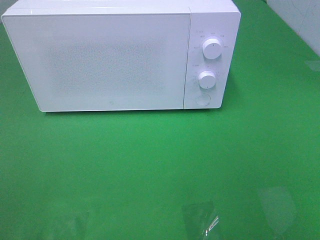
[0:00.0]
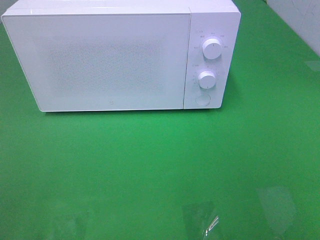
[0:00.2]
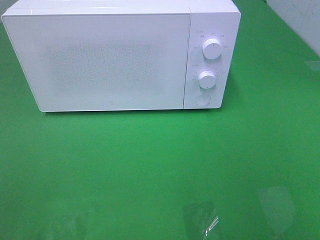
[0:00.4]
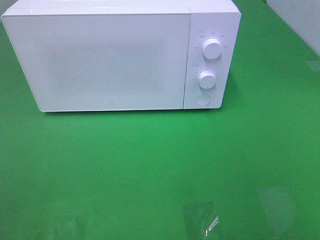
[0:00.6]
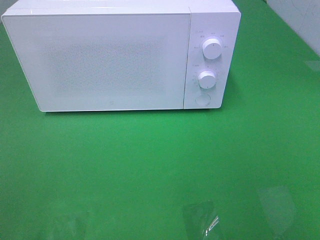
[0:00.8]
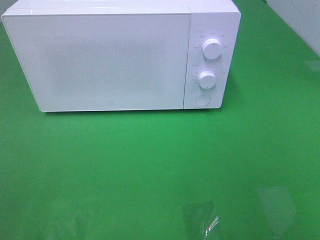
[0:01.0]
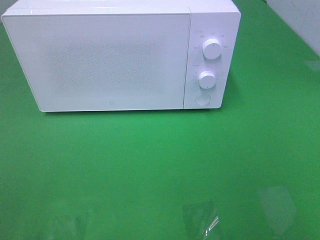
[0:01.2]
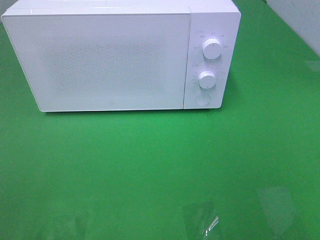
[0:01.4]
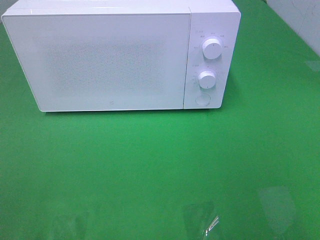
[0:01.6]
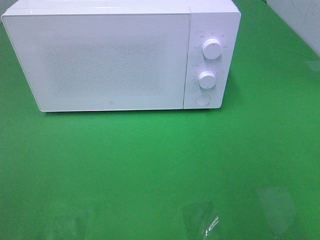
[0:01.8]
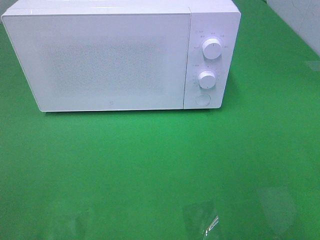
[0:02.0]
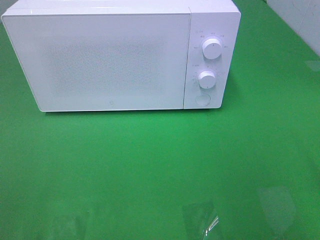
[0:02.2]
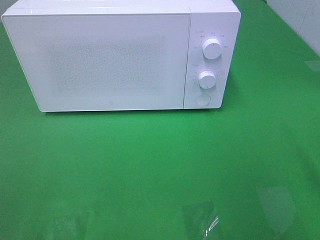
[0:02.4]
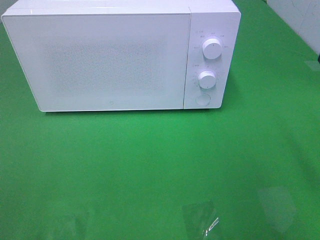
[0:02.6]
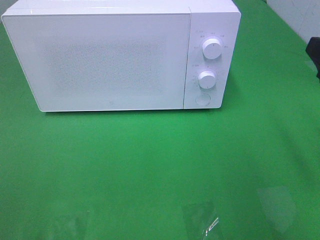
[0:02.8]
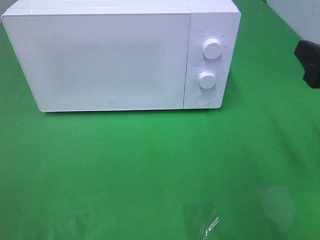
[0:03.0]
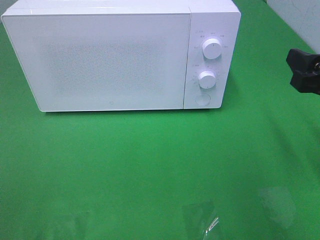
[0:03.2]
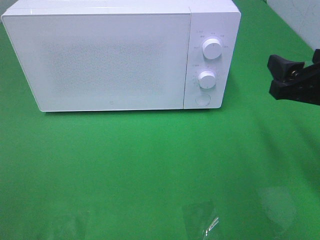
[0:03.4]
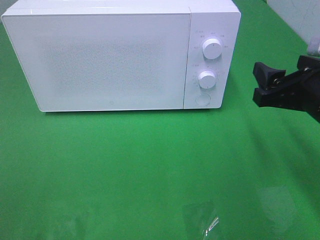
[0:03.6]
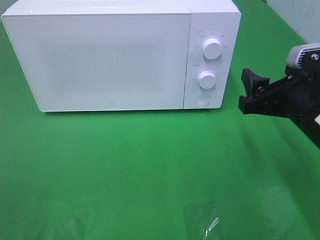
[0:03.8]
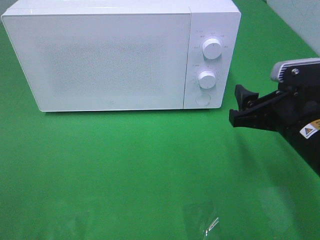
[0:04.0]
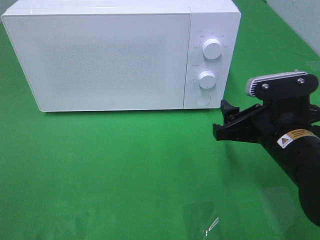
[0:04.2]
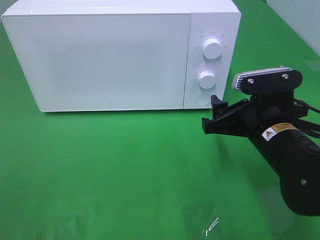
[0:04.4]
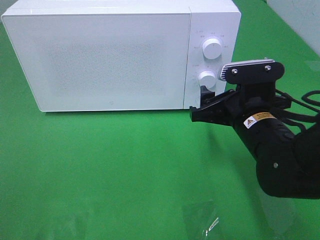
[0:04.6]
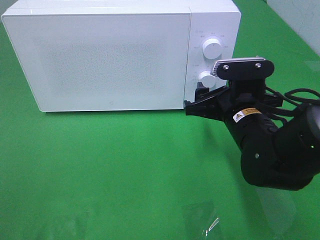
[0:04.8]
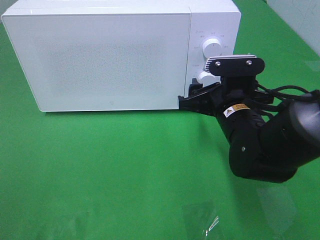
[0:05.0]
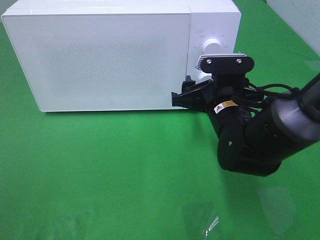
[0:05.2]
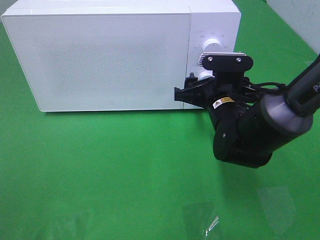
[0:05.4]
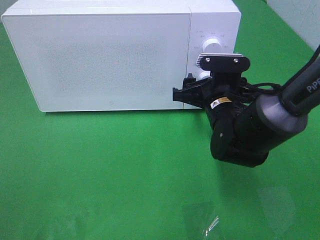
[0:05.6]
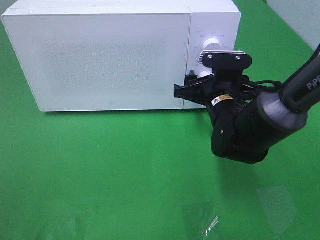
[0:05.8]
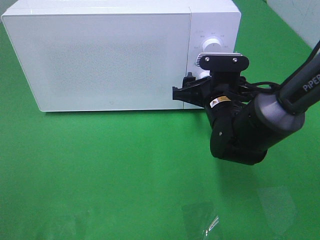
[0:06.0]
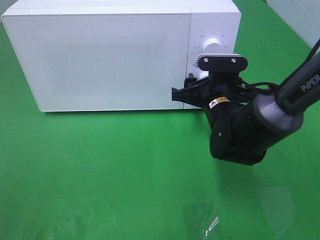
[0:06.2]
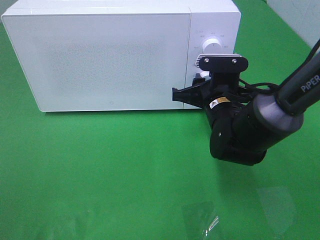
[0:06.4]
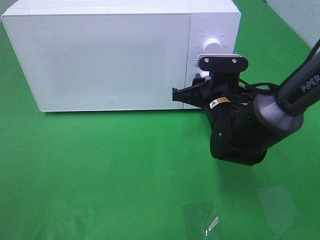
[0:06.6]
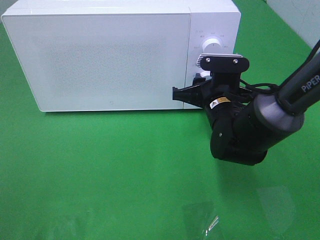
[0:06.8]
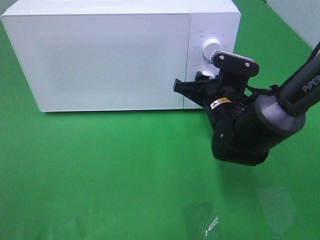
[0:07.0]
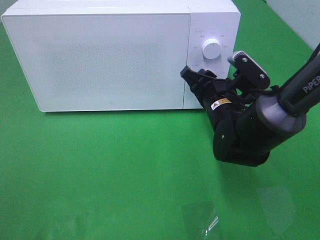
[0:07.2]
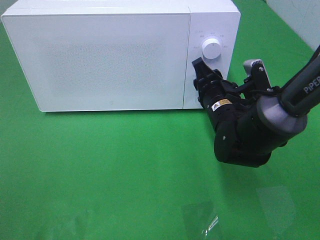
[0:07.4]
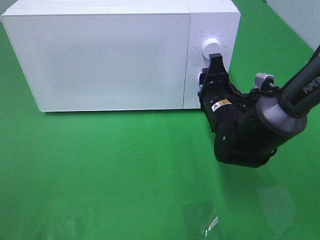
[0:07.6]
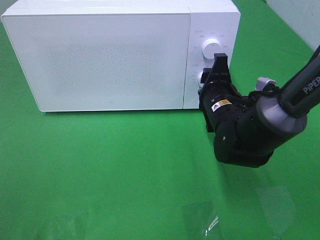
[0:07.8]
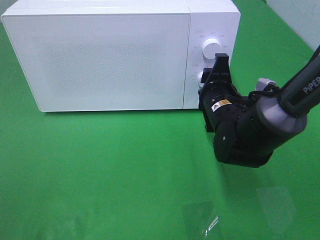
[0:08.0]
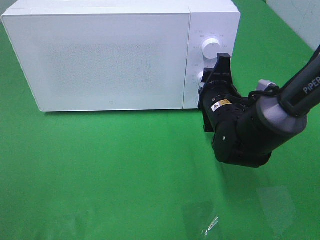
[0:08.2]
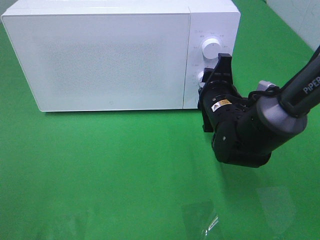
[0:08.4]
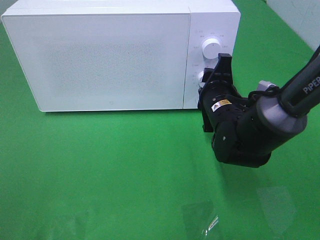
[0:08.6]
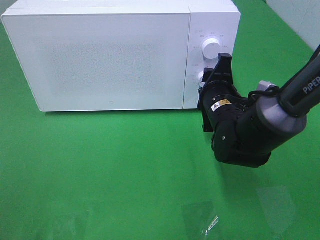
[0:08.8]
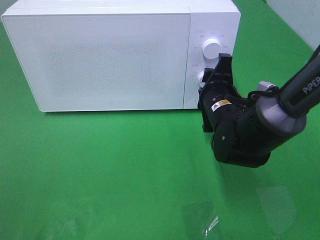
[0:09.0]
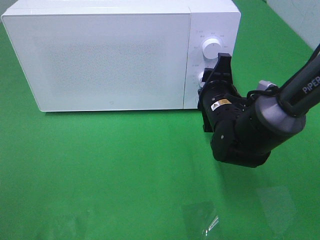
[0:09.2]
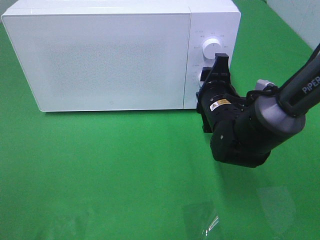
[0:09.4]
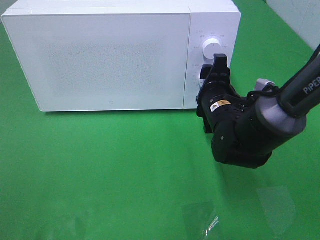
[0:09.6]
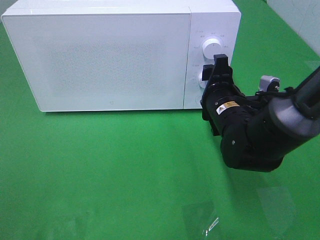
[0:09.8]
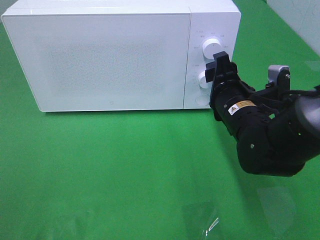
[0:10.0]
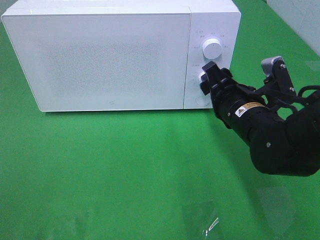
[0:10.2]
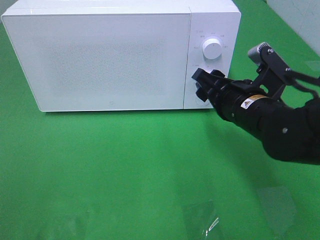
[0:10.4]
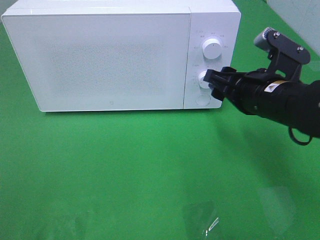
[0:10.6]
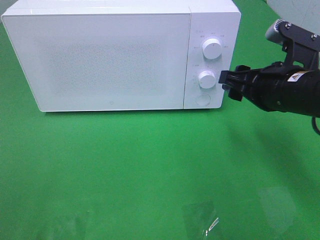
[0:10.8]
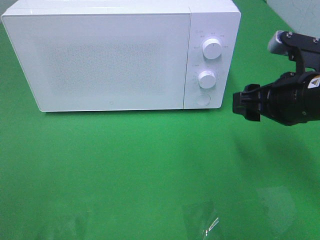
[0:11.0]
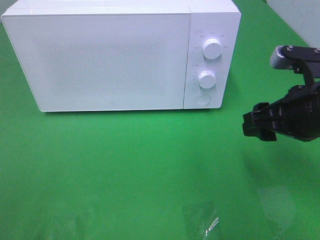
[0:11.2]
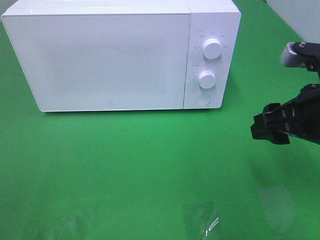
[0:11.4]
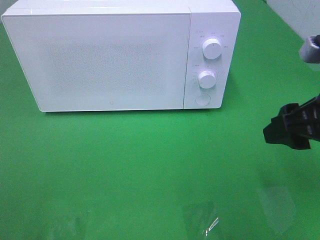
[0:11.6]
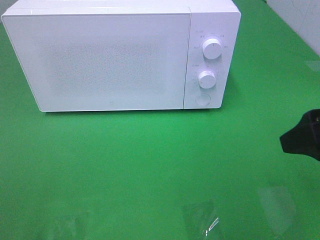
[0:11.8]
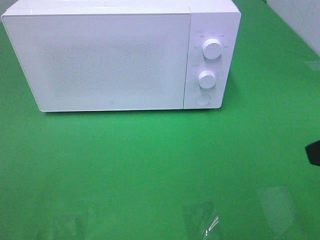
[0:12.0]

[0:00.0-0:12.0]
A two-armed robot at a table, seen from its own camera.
Task of the whole recording: Heat the burger.
Step, 0:00.0 to 0:09.8: Right hand: twist timer button.
0:01.6 to 0:03.0: The right gripper is displaced forward and downward by about 15 cm.
0:03.0 to 0:04.4: The right gripper is displaced to the left and downward by roughly 15 cm.
0:04.4 to 0:06.0: The right gripper shifts roughly 10 cm forward.
0:06.0 to 0:07.6: The right gripper closes its fingers.
0:07.6 to 0:09.0: The grippers move only a little.
0:09.0 to 0:10.4: The right gripper travels backward by roughly 5 cm.
0:10.4 to 0:12.0: The right gripper goes approximately 20 cm backward, upward and to the right.

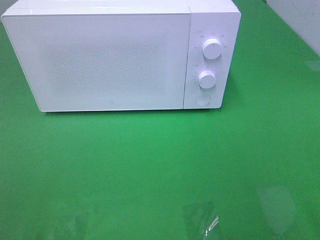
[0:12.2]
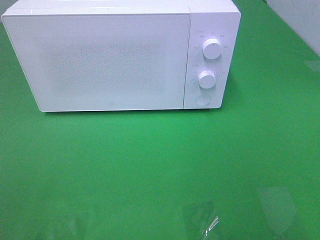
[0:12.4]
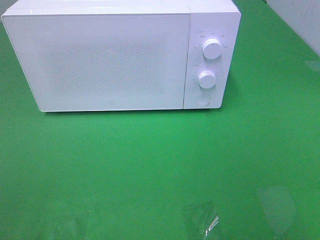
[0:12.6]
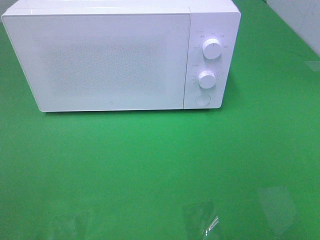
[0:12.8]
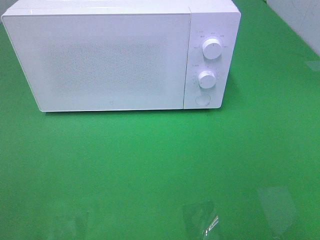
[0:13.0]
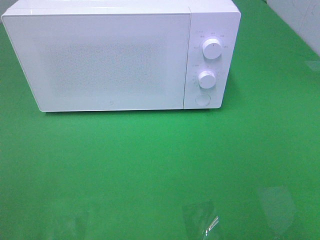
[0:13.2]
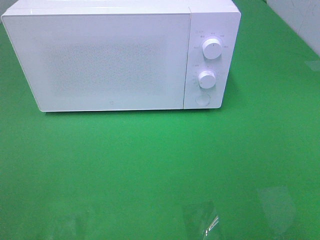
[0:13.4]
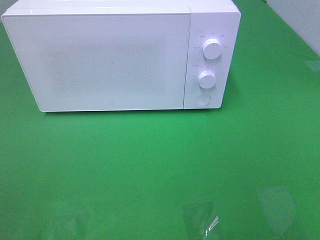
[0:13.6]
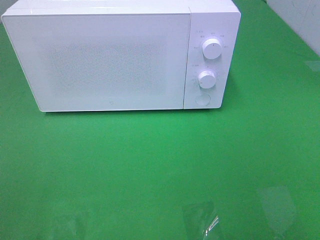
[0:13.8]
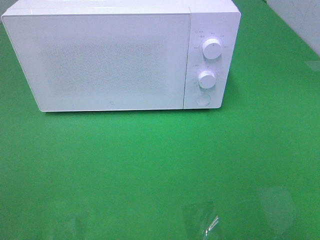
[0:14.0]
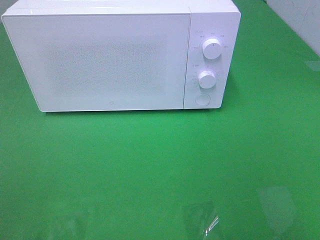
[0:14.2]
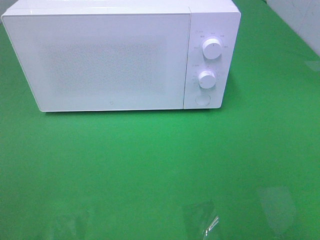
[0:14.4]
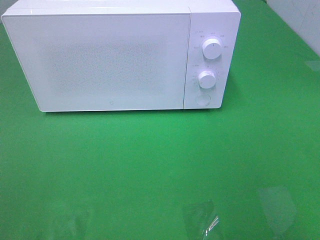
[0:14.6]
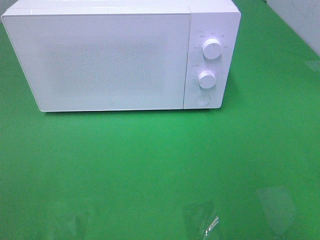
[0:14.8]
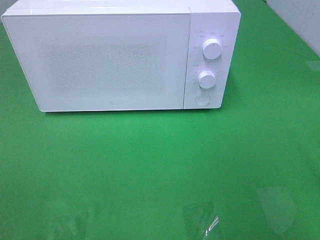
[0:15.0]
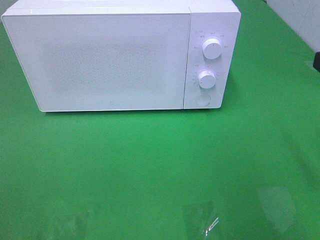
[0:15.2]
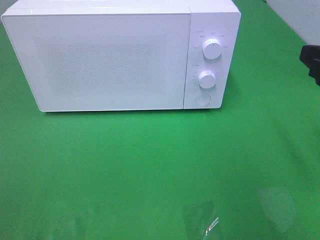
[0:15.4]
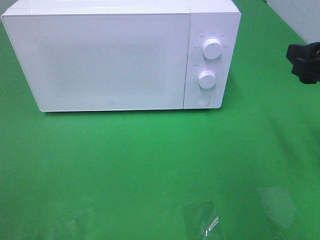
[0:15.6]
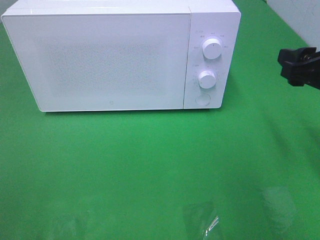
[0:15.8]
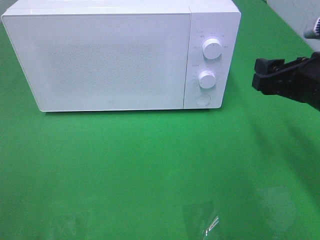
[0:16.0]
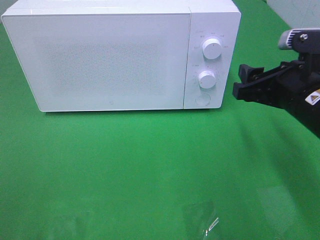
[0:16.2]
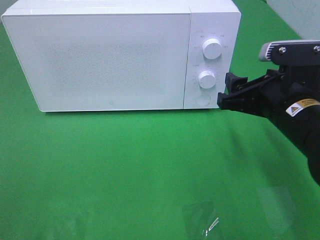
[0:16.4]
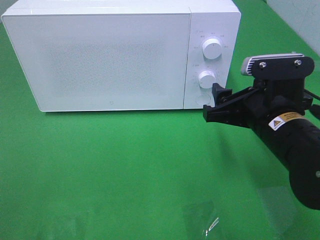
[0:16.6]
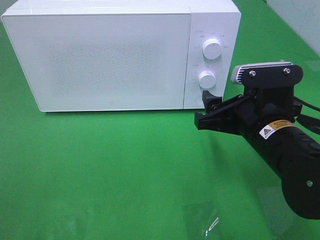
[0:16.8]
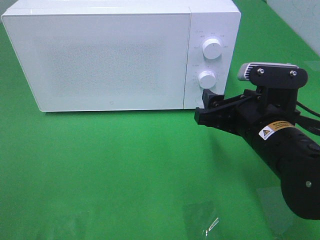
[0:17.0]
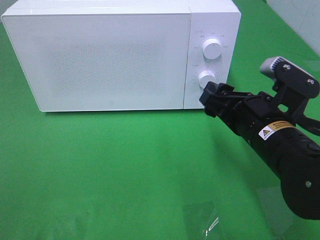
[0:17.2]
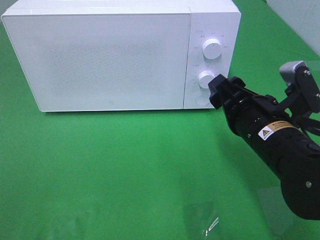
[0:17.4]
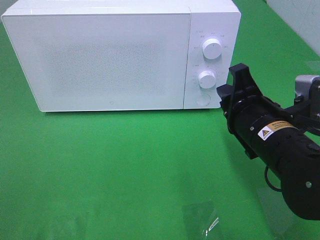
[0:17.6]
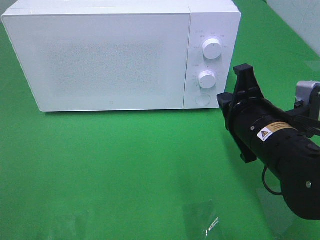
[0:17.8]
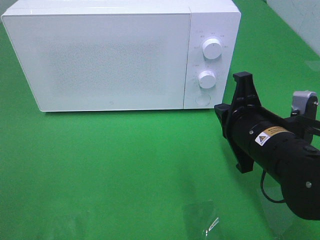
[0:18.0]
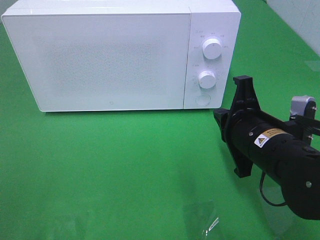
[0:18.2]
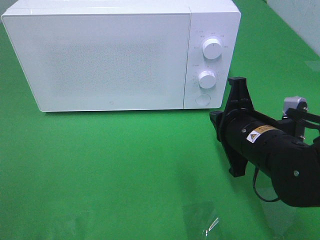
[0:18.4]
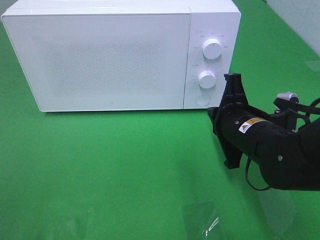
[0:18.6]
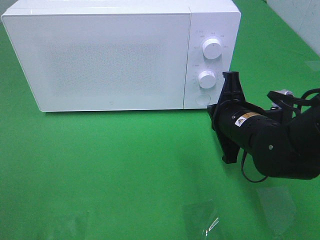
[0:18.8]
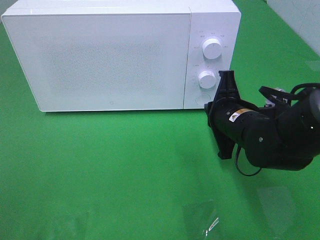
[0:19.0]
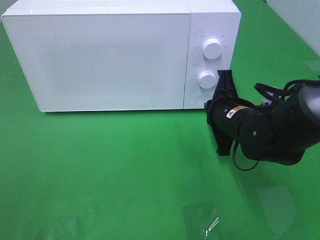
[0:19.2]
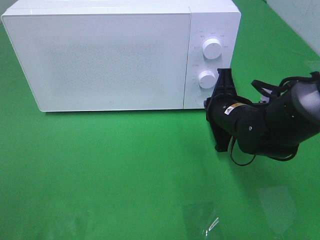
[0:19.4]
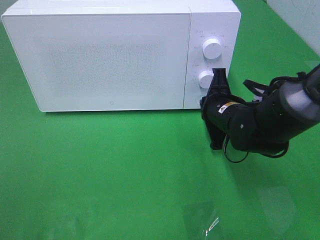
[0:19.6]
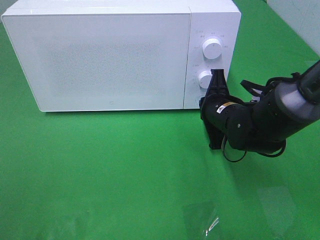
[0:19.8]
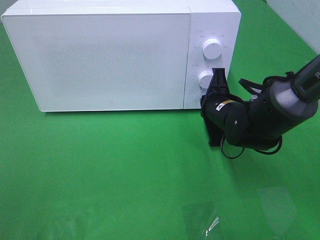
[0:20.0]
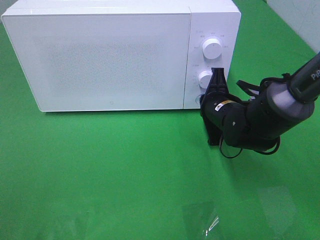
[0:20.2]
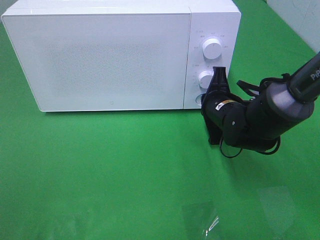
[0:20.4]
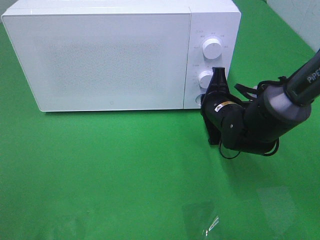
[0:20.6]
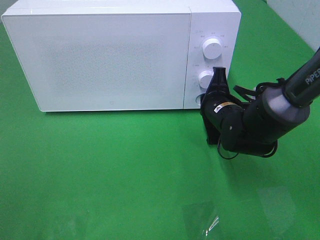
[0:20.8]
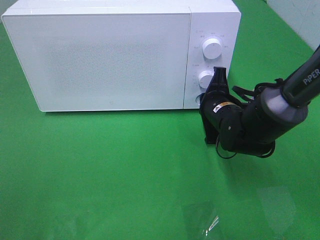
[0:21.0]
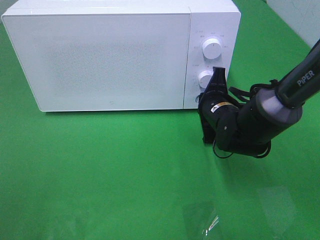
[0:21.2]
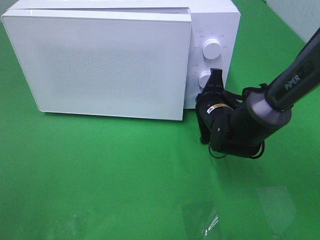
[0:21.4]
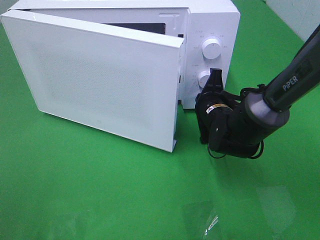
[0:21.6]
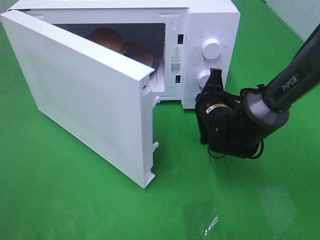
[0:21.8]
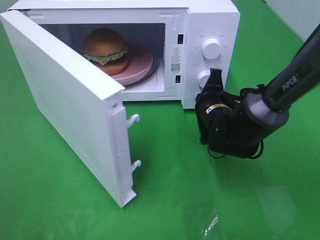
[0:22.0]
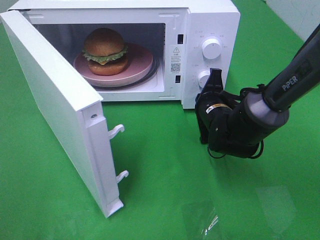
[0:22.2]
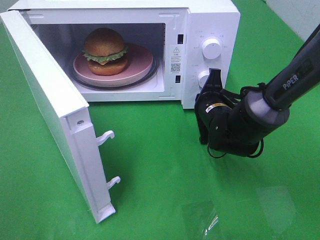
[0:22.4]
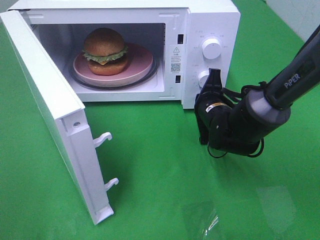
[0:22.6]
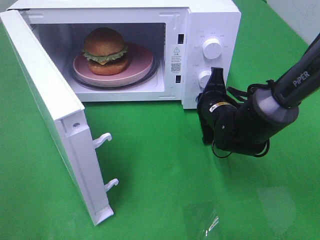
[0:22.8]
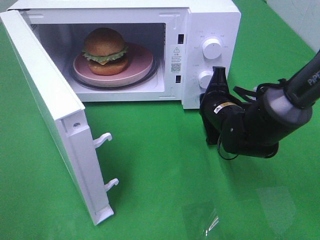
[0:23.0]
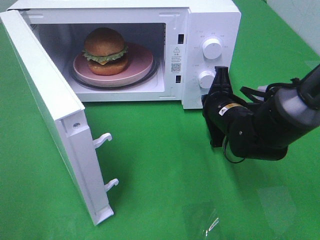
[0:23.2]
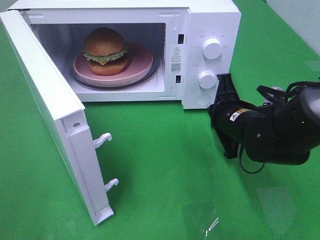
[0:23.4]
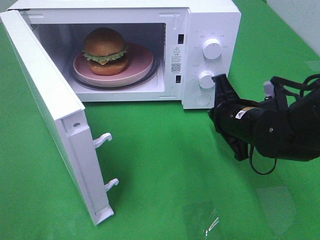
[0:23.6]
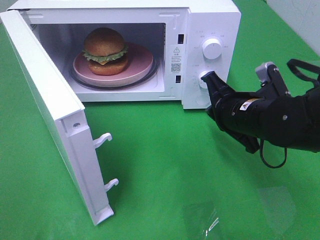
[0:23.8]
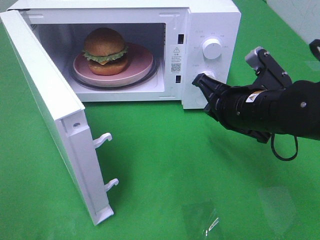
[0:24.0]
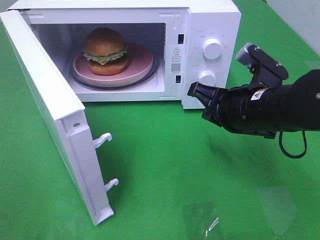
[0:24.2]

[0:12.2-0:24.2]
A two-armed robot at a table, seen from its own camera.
Task of the whole recording: Heat the burger.
Step, 0:12.2 to 0:23.4: Right hand: press the switch.
0:15.2 to 0:16.6: The right gripper is displaced to the left, downward and forward by approximately 15 cm.
0:16.6 to 0:18.2: The right gripper closes up.
0:18.2 to 0:19.8: The right gripper shifts about 10 cm forward and downward.
0:19.8 to 0:21.2: The grippers move only a little.
0:22.6 to 0:24.2: The right gripper travels upward and backward by some 15 cm.
